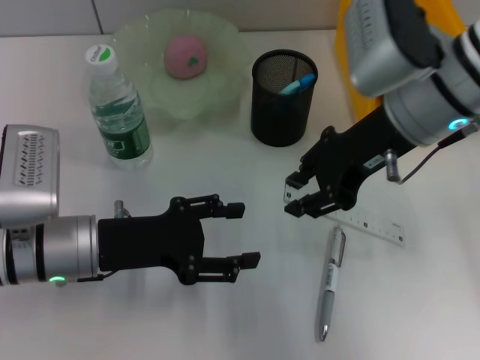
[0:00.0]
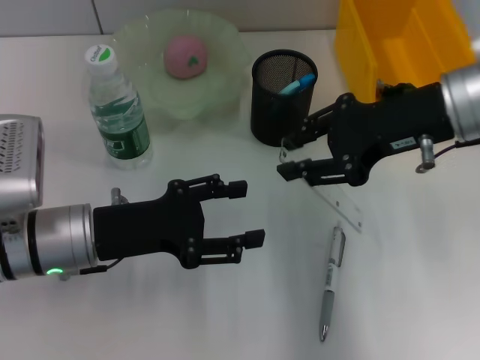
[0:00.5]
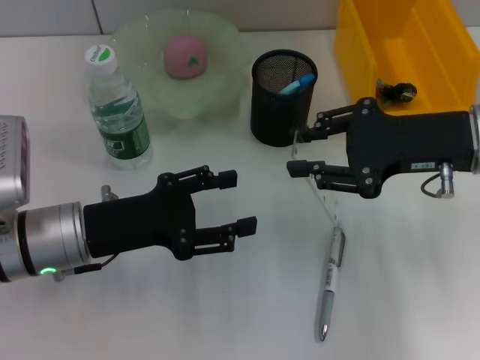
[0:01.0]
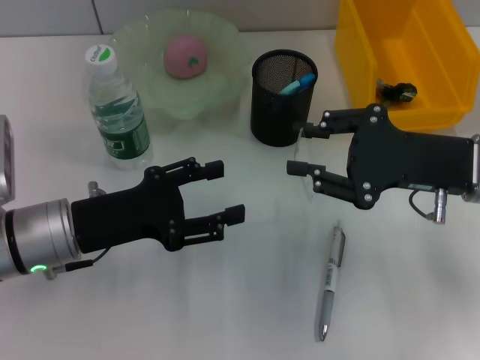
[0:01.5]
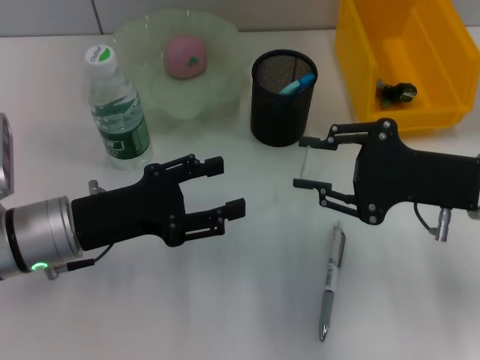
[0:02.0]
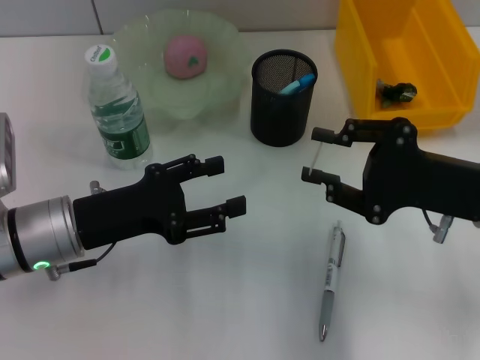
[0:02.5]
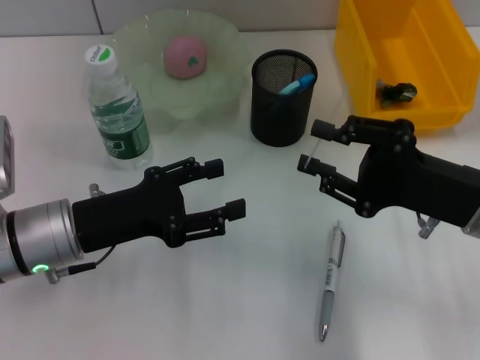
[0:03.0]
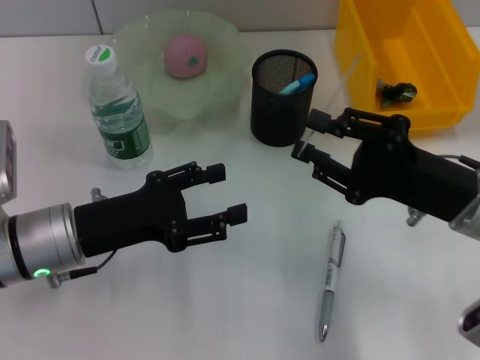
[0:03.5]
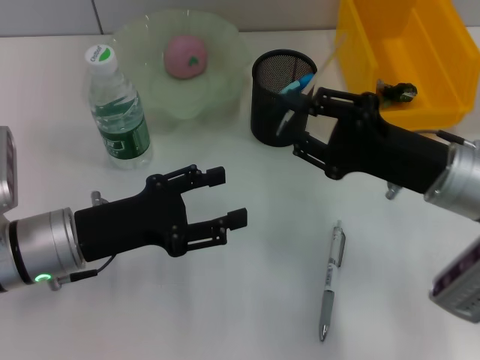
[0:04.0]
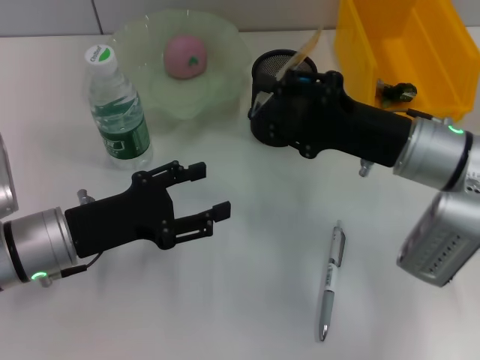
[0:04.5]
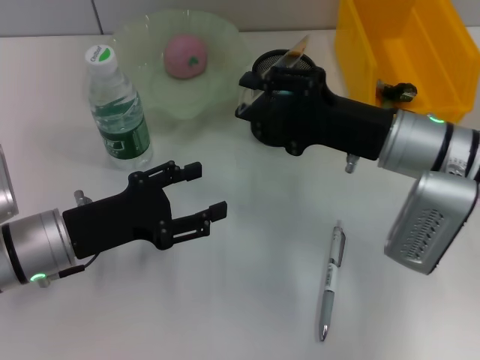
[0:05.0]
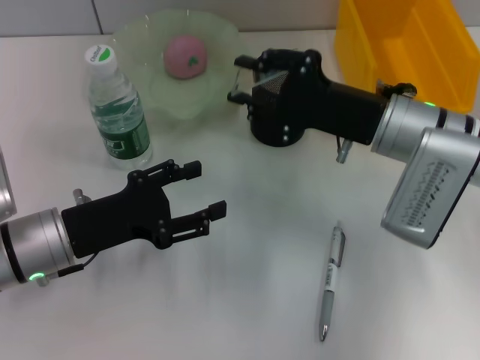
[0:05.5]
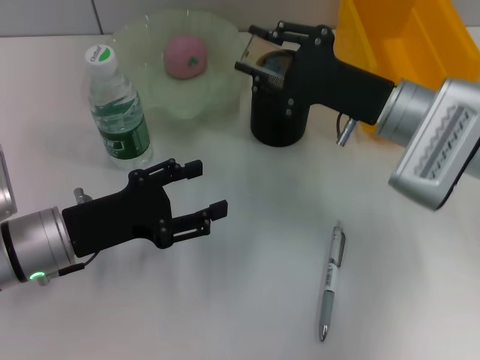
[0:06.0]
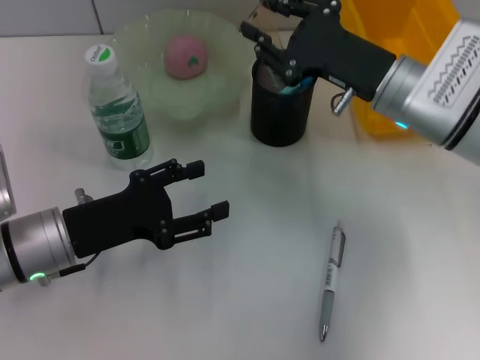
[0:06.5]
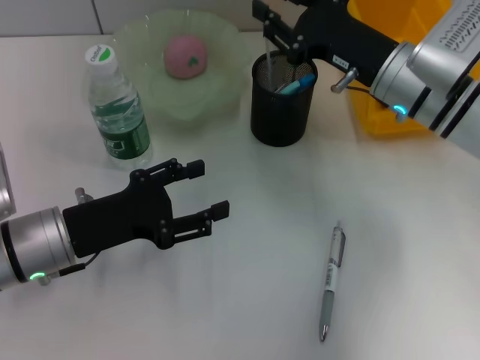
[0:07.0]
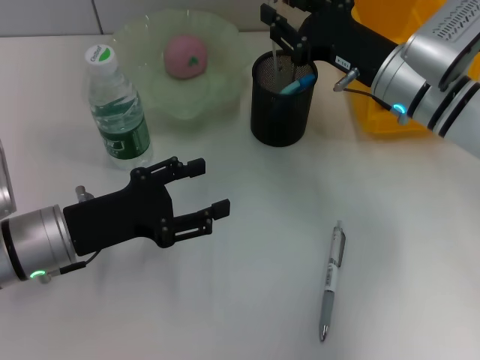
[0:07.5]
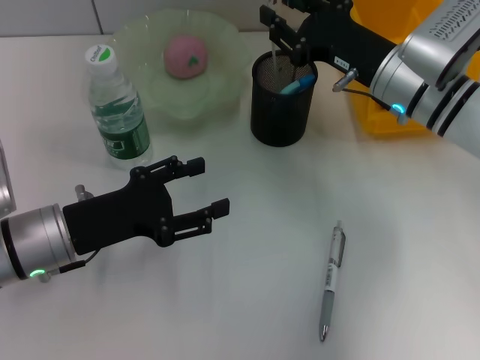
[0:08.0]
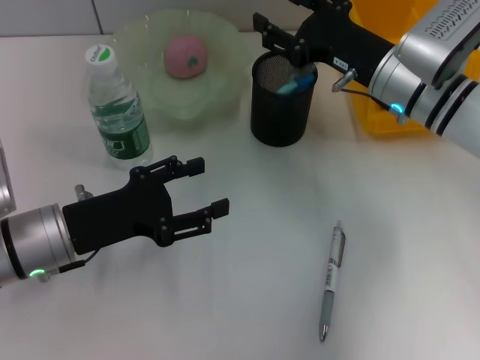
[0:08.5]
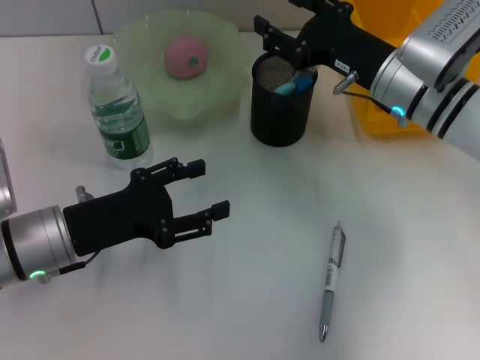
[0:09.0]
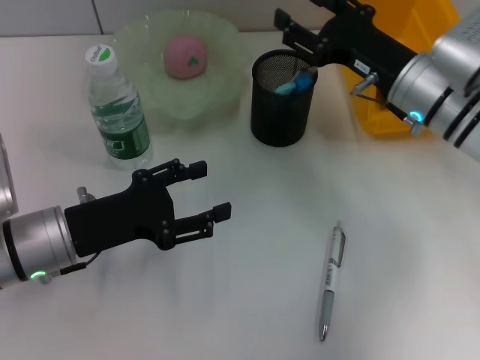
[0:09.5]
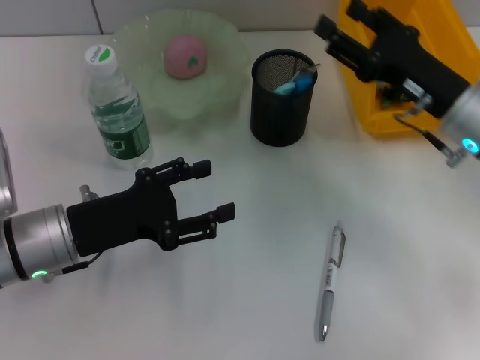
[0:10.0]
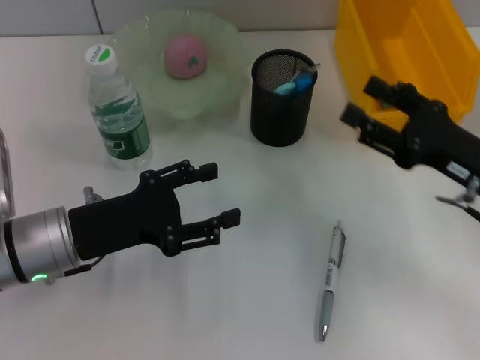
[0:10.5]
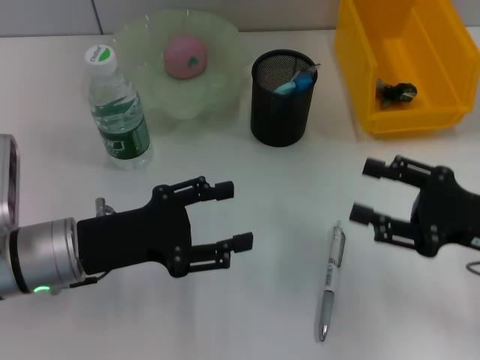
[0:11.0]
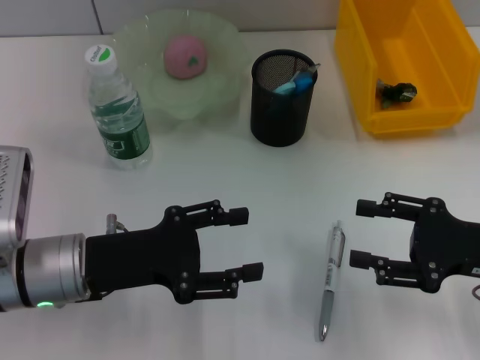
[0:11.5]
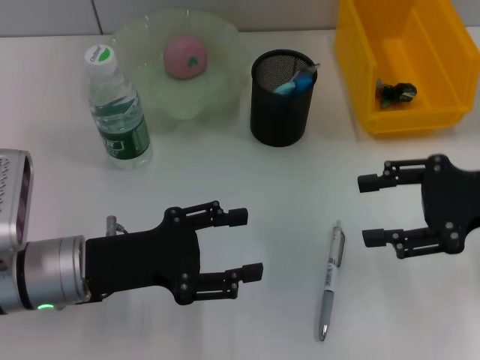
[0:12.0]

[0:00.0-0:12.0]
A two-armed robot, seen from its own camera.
Step, 0:00.0 to 0:08.5: Place the ruler into the pen holder with the right hand.
0:00.0 to 0:02.0: The right gripper heads to the right, downward and backward, covering roughly 15 cm.
0:04.0 to 0:06.0: The right gripper is displaced forward by approximately 5 cm.
0:08.0 to 0:10.0: The right gripper moves to the right, about 5 cm.
0:10.0 to 0:12.0: The right gripper shifts approximately 10 cm to the right, upward and backward.

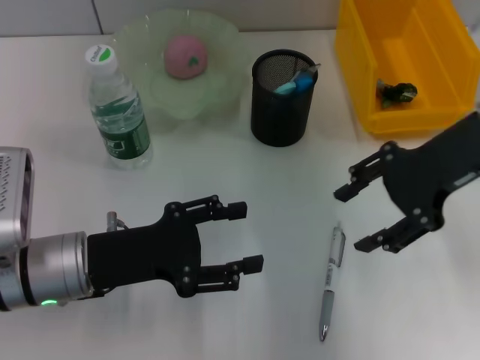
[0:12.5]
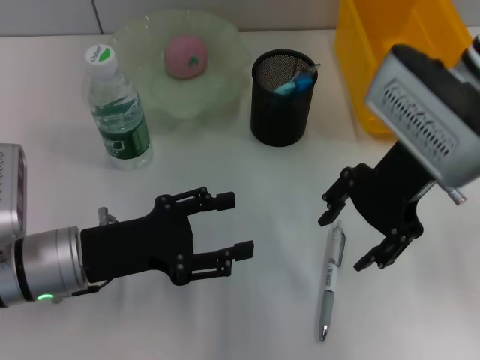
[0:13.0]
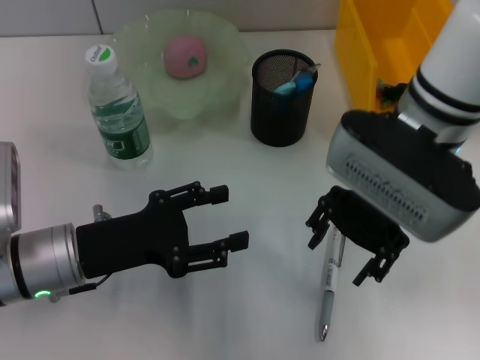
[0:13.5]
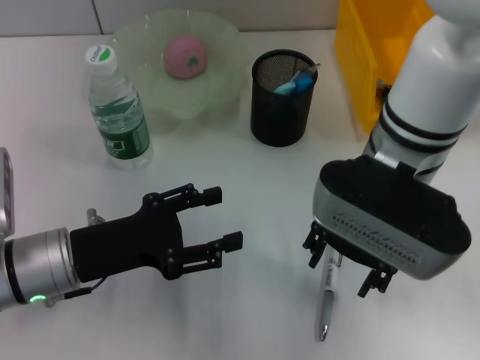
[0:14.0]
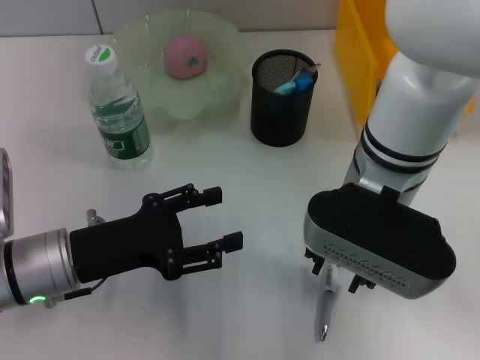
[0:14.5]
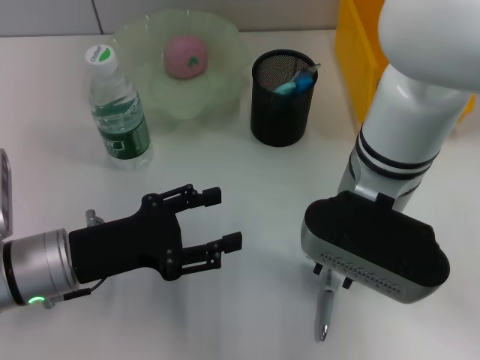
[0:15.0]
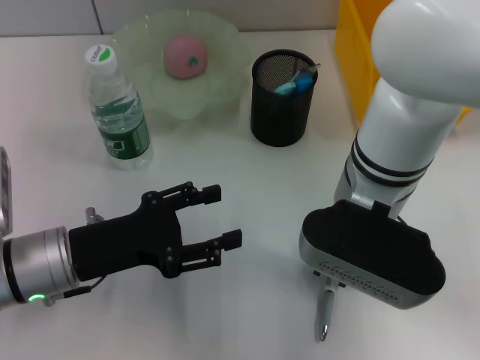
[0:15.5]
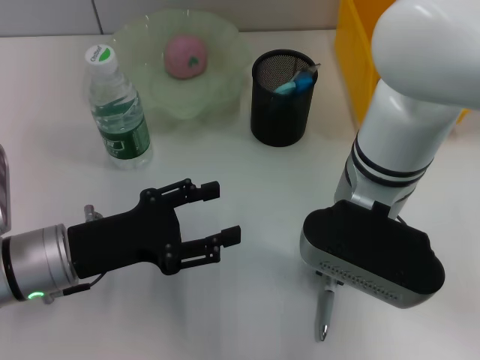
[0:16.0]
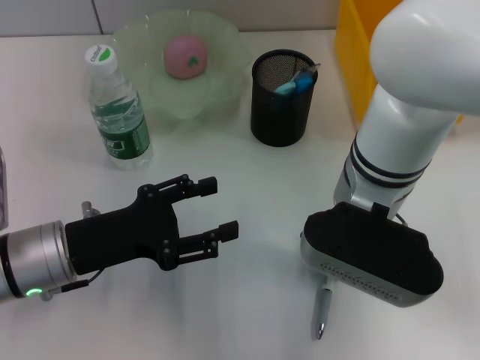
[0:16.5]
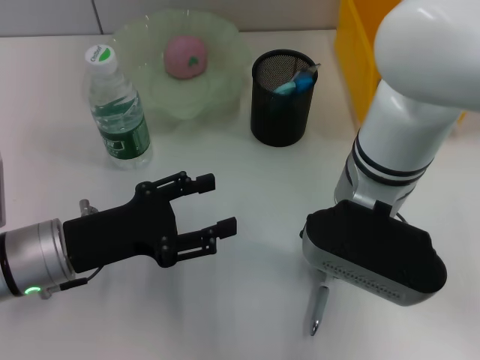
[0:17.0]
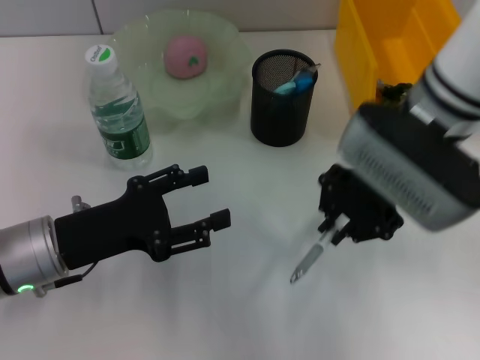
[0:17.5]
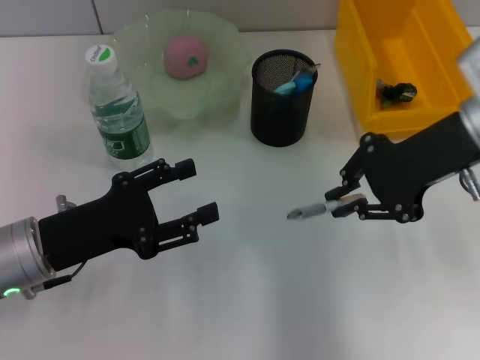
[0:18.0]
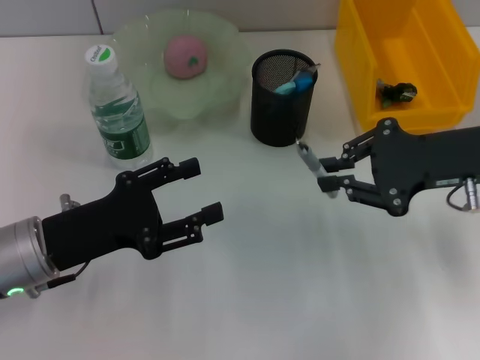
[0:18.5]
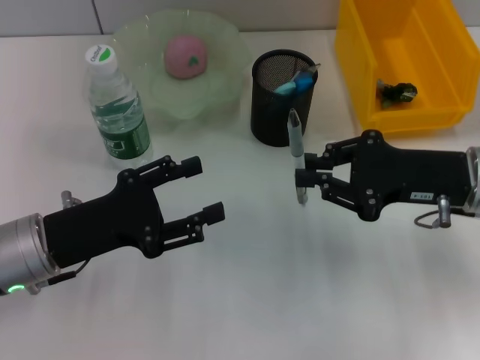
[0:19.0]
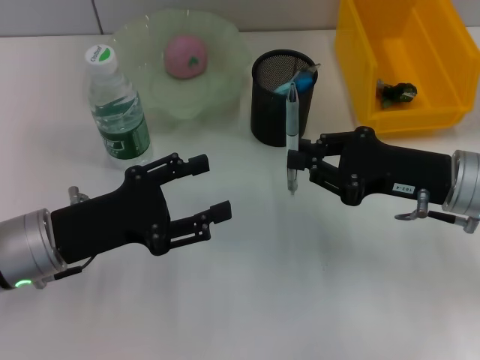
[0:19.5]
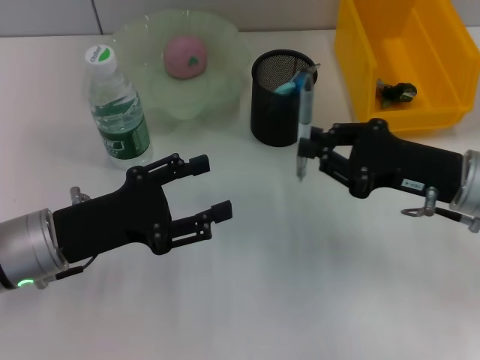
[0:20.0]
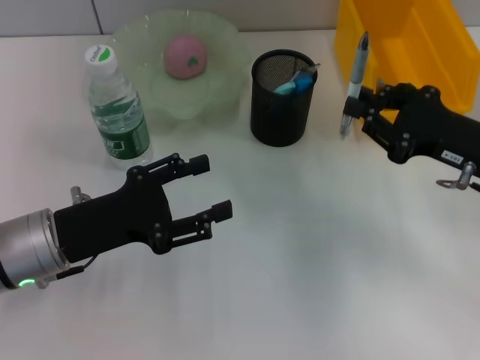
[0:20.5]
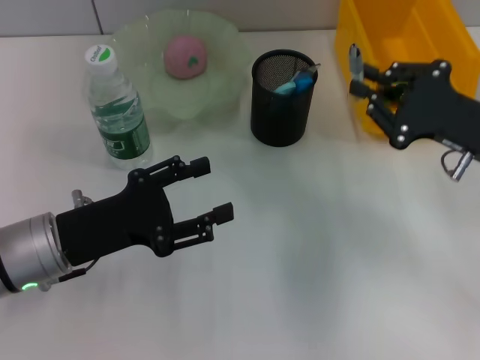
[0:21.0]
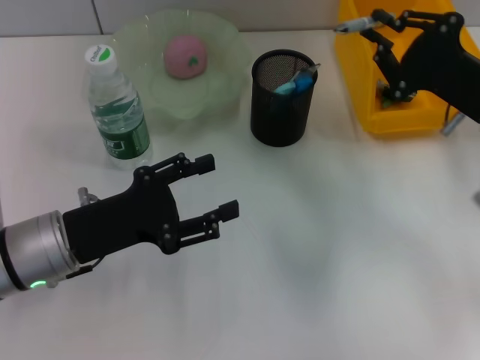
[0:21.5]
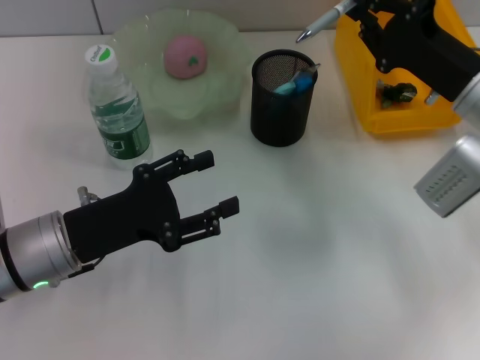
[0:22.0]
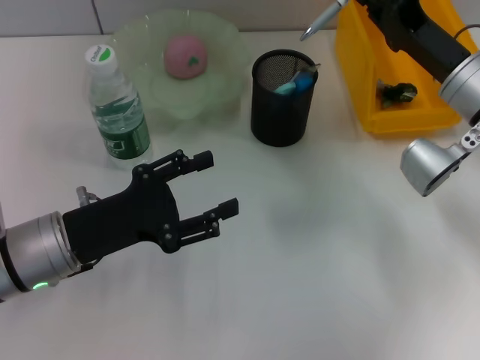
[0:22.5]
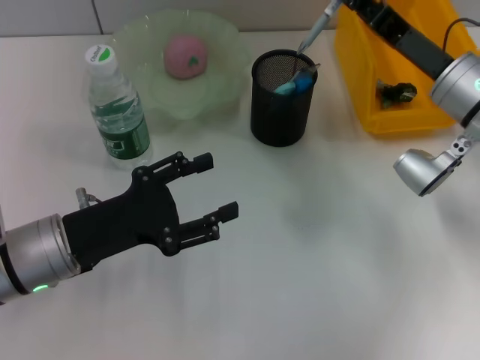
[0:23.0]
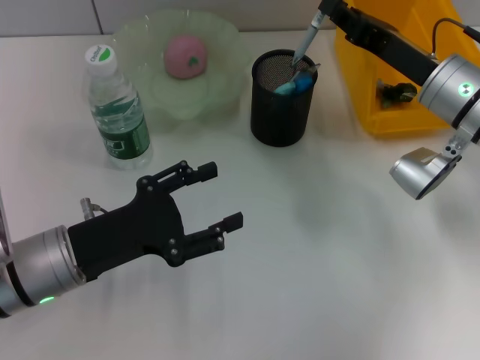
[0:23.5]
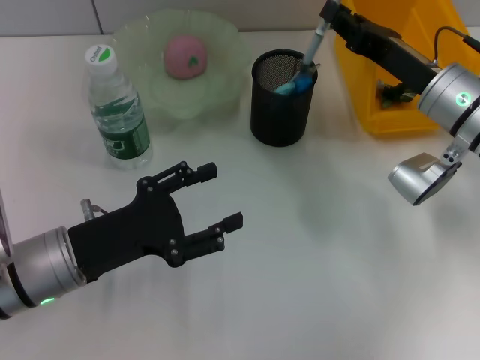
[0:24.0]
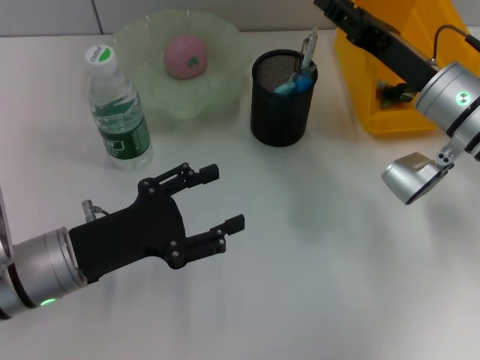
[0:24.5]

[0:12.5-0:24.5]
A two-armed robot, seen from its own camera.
Step, 0:12.5 to 0:16.5: Grab the gray spring-action pen with the right hand.
0:12.5 to 0:14.5: The right gripper shifts about 15 cm to the left.
0:14.5 to 0:16.5: The right gripper closes.
0:16.5 to 0:18.5: The right gripper travels to the right by roughly 15 cm.
0:18.5 to 0:20.5: The right gripper moves approximately 5 cm.
0:20.5 to 0:22.5: The right gripper travels forward by roughly 5 cm.
0:22.5 to 0:24.5: The right gripper opens up.

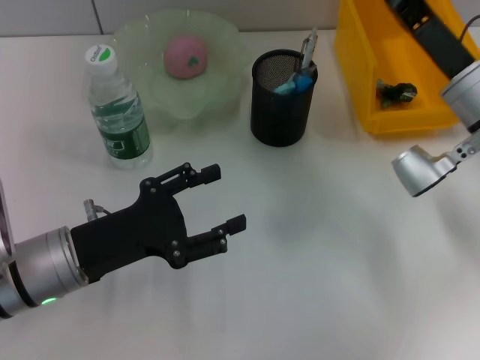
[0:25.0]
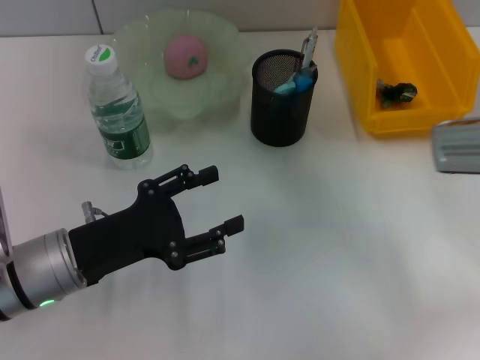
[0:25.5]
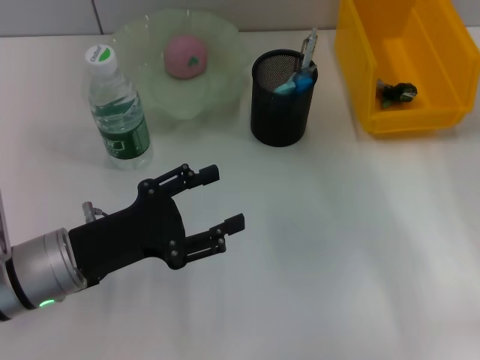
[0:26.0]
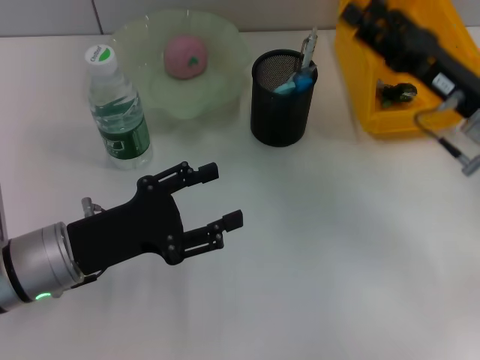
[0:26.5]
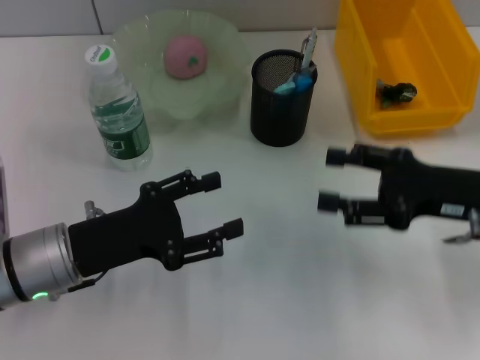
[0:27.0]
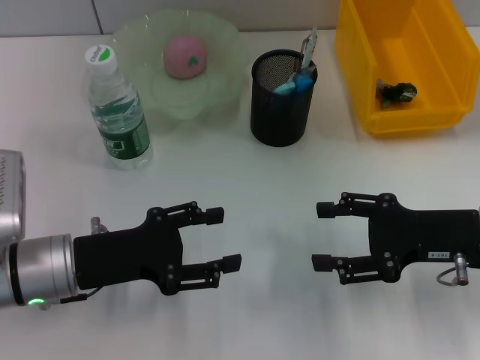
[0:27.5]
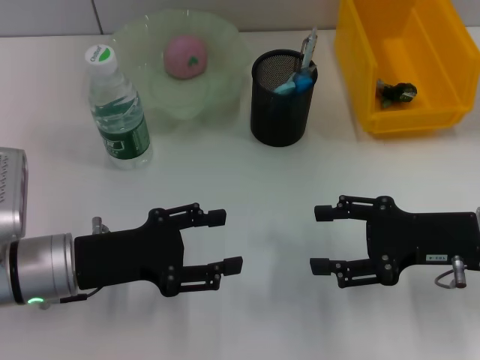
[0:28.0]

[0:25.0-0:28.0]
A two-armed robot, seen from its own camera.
0:26.5 to 0:28.0: The right gripper heads backward, covering approximately 5 cm.
